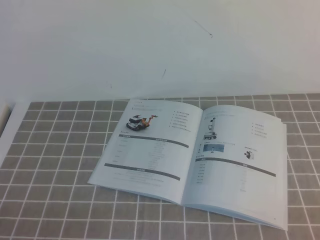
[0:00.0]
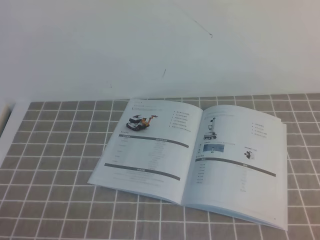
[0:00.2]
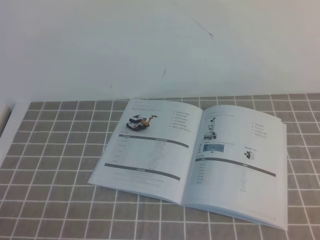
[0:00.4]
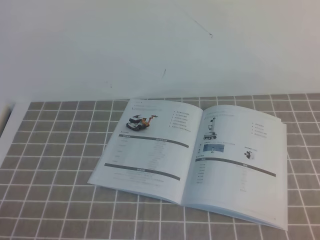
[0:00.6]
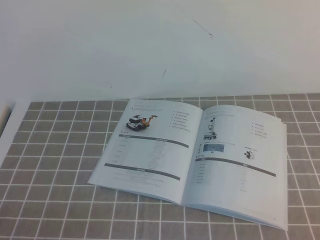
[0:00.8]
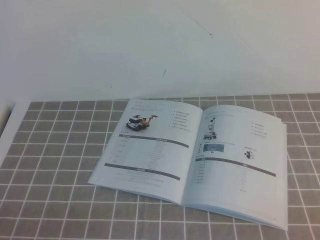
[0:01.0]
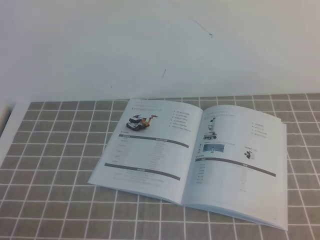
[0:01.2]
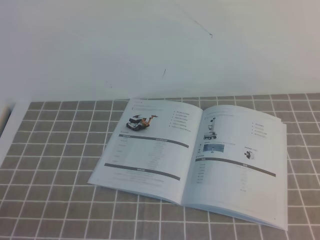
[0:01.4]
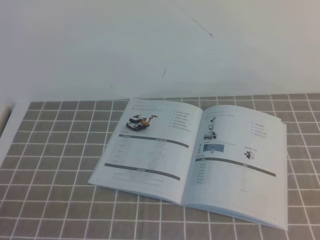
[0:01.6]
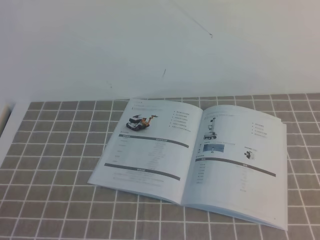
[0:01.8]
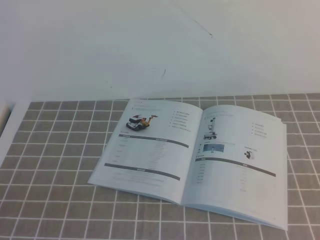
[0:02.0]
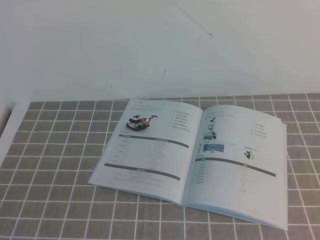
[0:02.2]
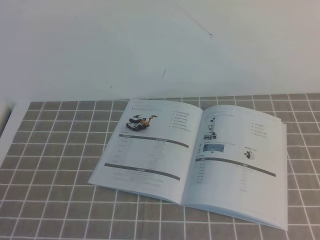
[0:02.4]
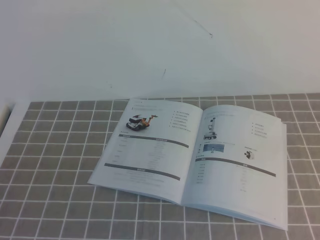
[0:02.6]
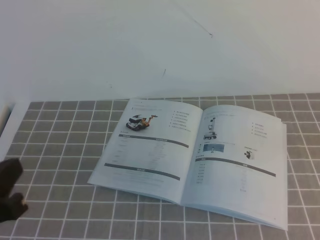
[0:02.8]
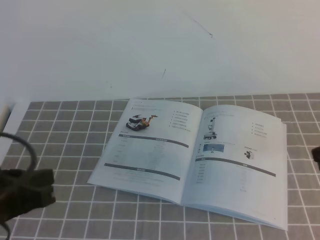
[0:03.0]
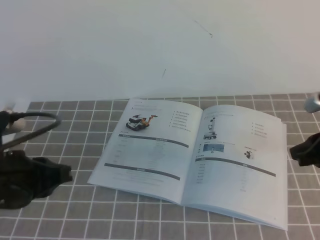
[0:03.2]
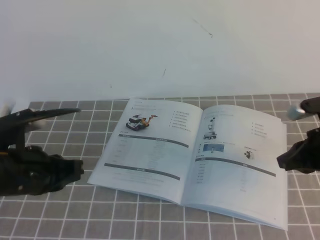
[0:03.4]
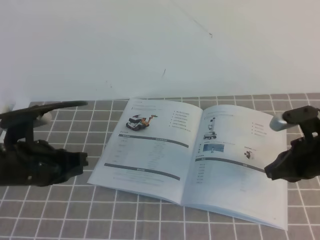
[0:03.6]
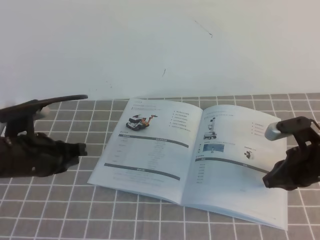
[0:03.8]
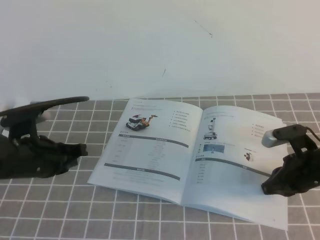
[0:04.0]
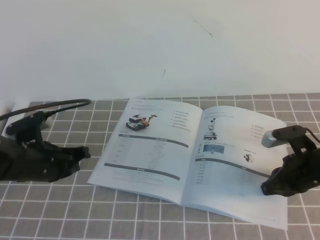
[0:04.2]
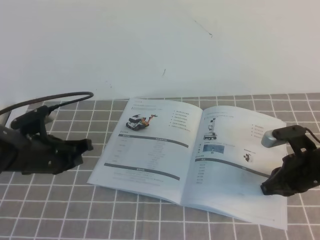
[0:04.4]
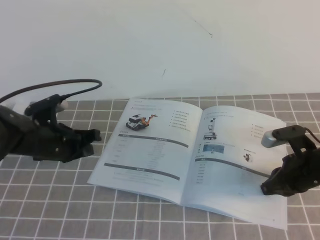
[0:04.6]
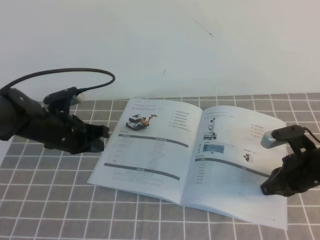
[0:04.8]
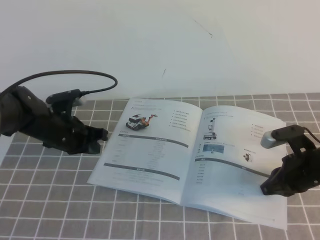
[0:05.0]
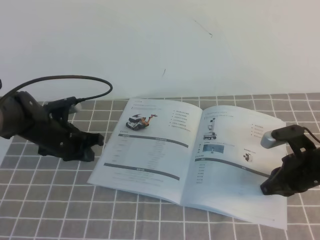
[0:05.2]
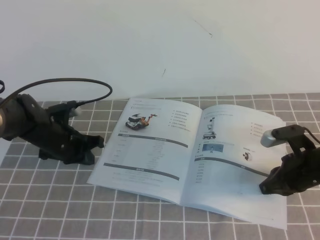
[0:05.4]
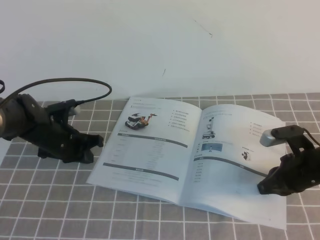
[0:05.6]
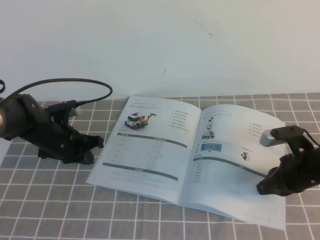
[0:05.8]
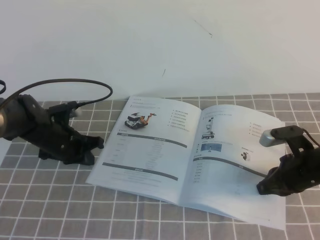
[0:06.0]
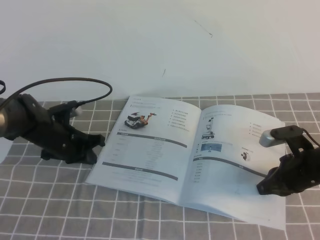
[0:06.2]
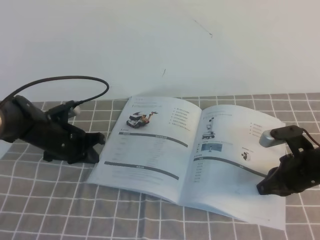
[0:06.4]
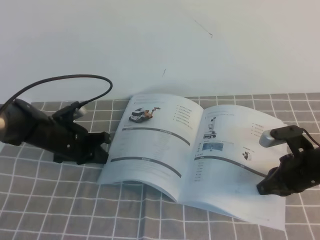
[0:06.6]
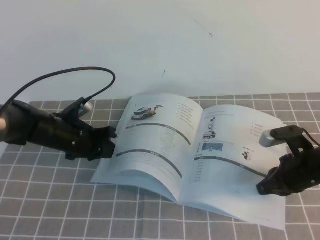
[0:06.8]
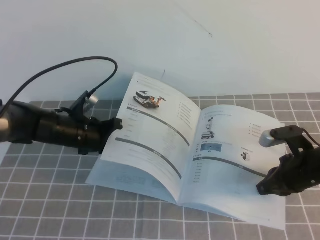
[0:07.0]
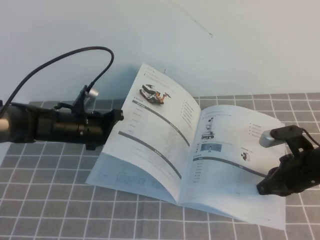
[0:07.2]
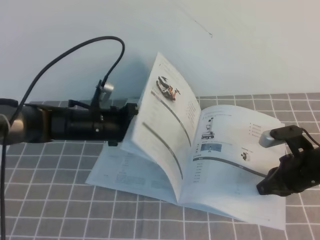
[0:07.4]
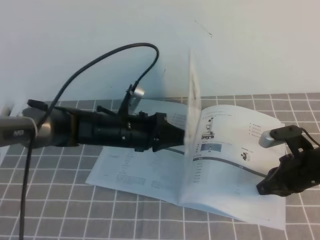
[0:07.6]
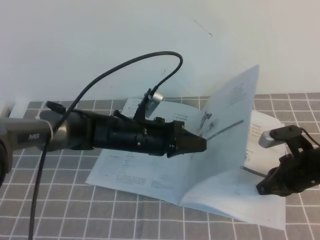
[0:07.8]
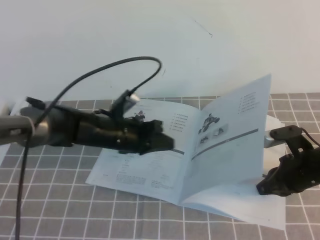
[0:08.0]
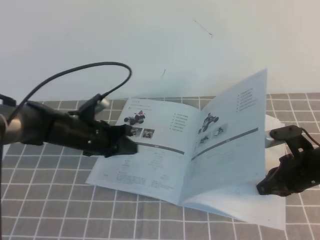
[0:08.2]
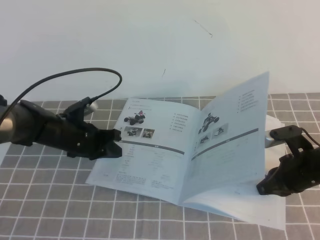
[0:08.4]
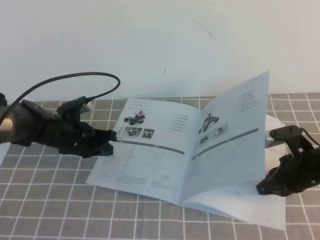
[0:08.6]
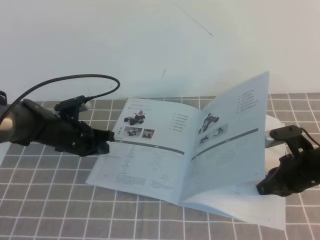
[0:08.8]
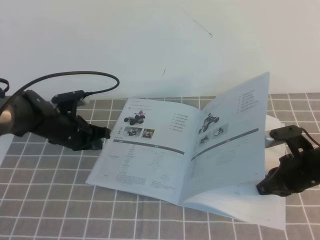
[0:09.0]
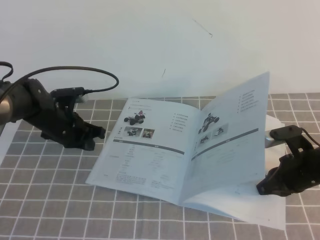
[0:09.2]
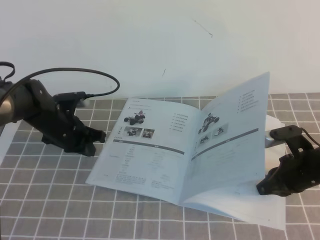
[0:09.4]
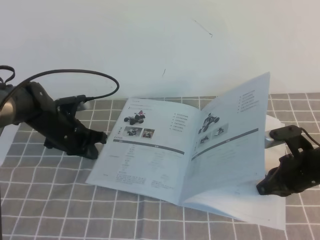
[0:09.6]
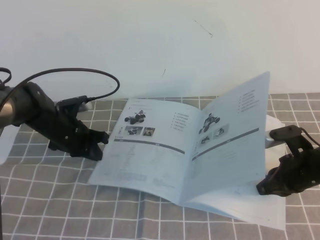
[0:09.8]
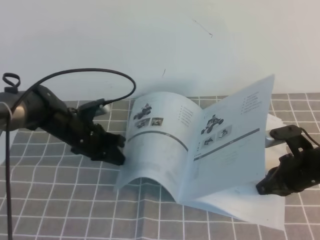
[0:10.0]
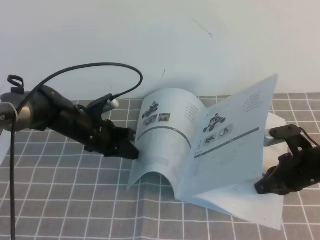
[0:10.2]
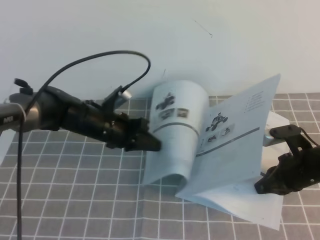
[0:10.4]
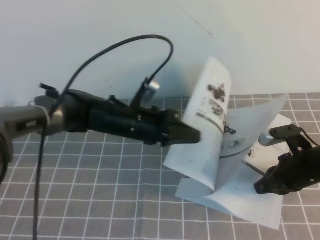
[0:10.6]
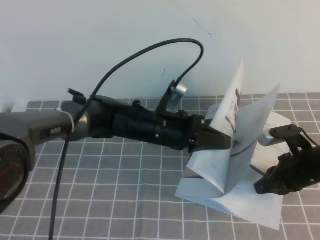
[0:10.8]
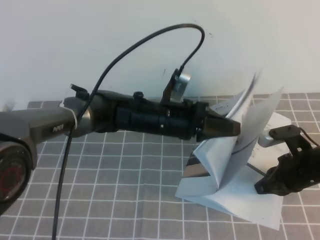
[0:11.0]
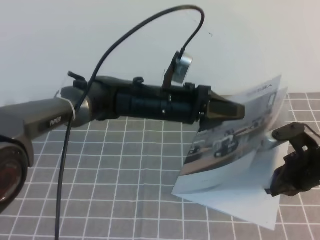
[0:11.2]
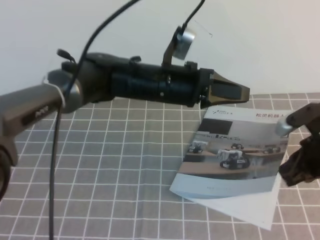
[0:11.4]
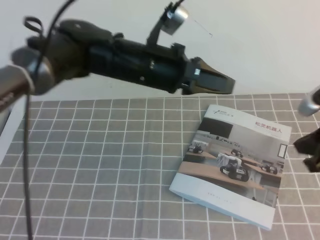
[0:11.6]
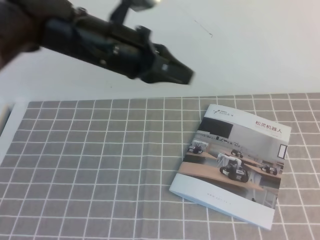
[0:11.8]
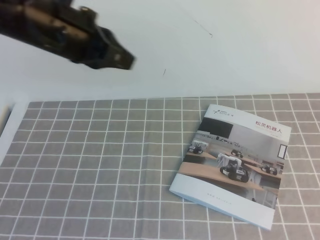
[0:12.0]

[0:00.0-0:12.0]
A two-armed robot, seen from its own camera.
Task of the whole recording: on the grey tablecloth, hold the book with one hand and close it with the other.
0:01.6 to 0:03.0: The left gripper is displaced forward and upward by roughly 10 cm; the right gripper is displaced forward by some 20 cm.
0:03.0 to 0:04.4: The left gripper shifts about 20 cm forward and downward. The right gripper is displaced downward and forward by approximately 15 cm.
0:04.4 to 0:06.0: The left gripper travels forward by some 5 cm.
0:06.0 to 0:07.6: The left gripper heads to the right, covering roughly 10 cm.
0:07.6 to 0:09.0: The left gripper goes some 10 cm to the left.
0:09.0 to 0:10.4: The left gripper travels to the right by roughly 10 cm.
0:10.4 to 0:12.0: The right gripper is displaced upward and backward by approximately 30 cm; the left gripper moves upward, roughly 25 cm.

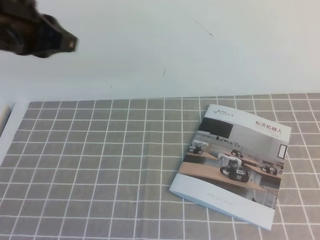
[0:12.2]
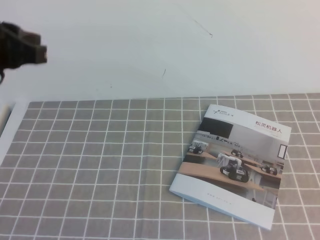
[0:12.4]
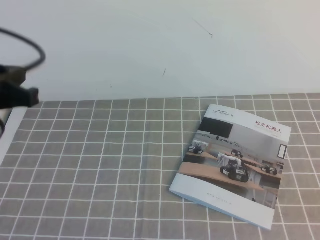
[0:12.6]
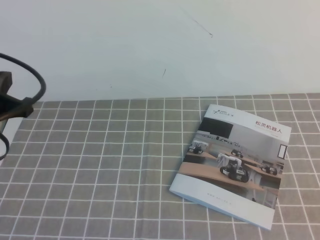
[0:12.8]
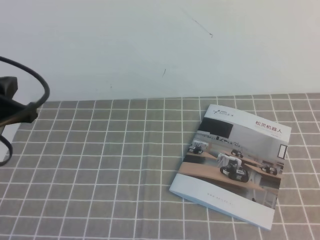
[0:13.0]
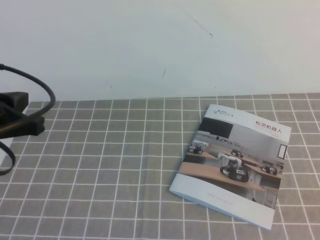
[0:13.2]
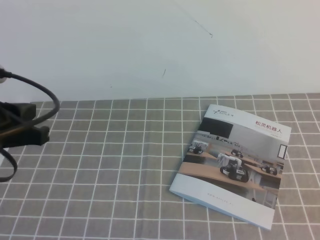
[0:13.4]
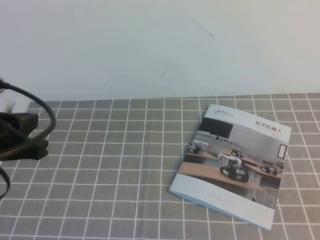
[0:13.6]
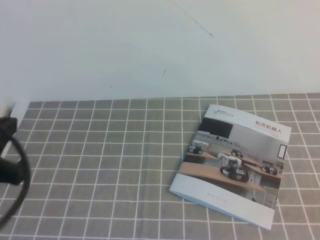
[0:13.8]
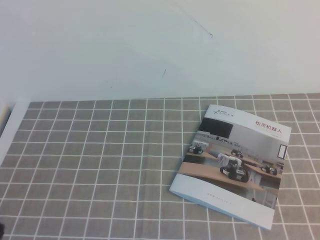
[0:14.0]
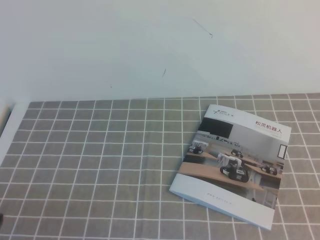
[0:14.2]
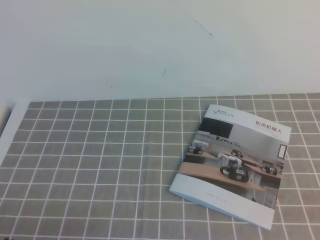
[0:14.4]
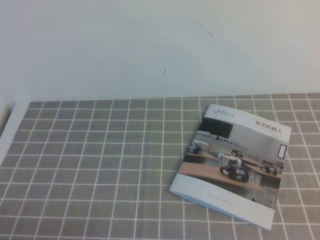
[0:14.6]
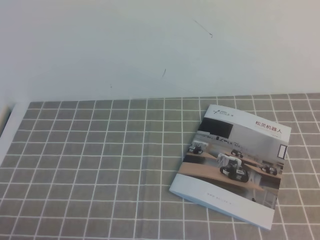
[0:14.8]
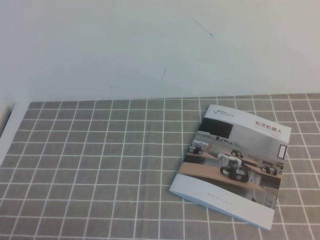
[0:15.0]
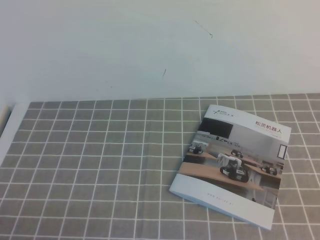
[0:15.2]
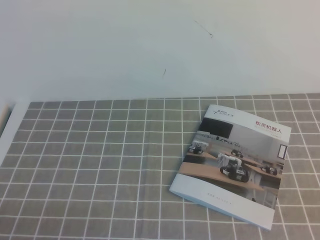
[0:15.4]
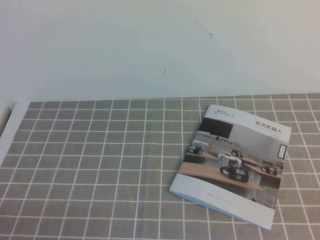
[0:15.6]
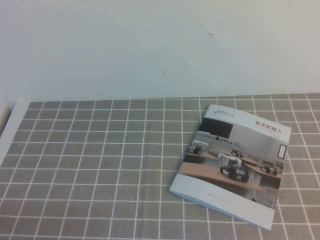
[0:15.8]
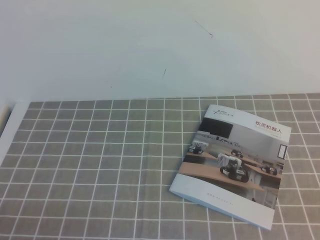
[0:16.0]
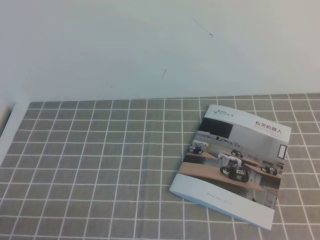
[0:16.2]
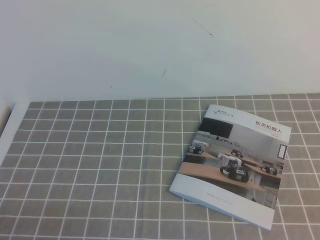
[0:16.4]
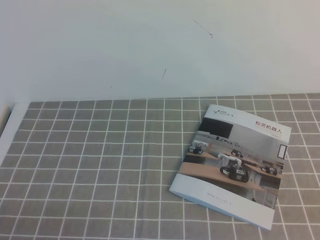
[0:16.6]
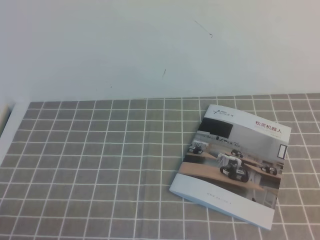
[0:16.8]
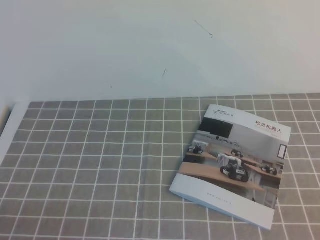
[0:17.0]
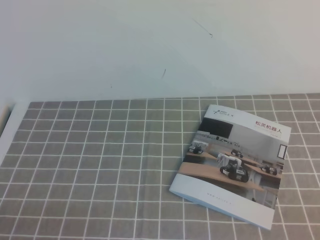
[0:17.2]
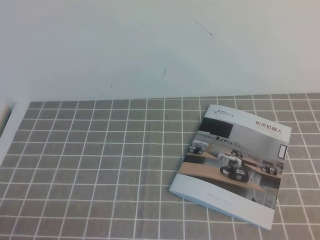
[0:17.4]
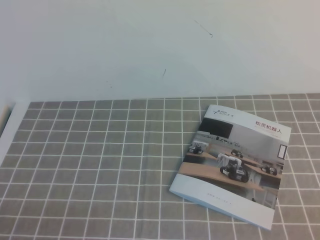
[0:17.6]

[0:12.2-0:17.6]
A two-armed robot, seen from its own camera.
Task of the whole recording: on the grey tablecloth, hold the book with one hand and close it with the other.
Step, 0:12.2 to 0:17.6: Close the open book.
0:12.2 to 0:13.6: The right gripper moves downward and backward, roughly 10 cm. Meanwhile the left gripper moves backward and downward, some 15 cm.
0:13.6 to 0:15.0: The left gripper shifts about 20 cm downward and backward.

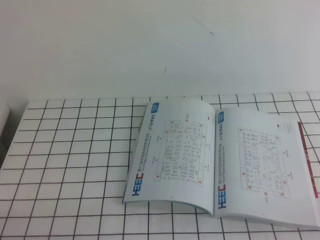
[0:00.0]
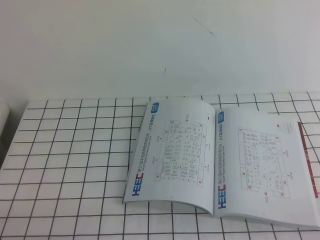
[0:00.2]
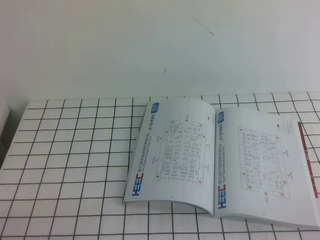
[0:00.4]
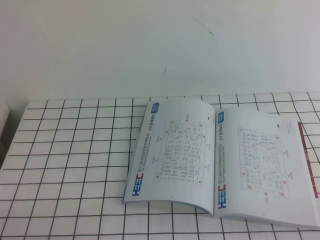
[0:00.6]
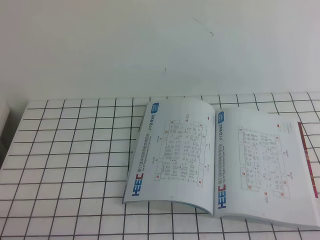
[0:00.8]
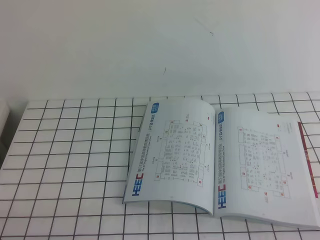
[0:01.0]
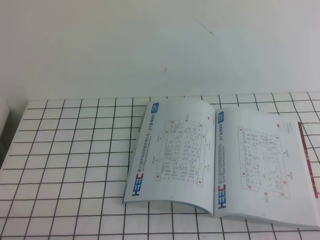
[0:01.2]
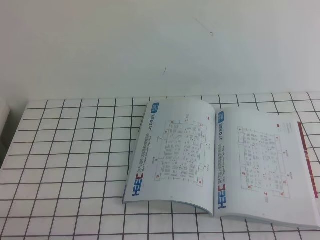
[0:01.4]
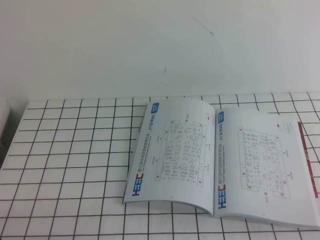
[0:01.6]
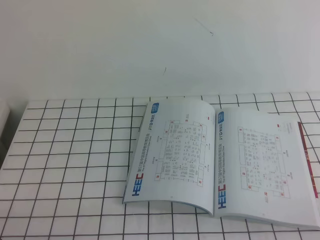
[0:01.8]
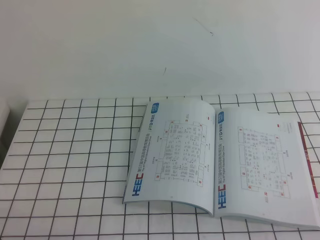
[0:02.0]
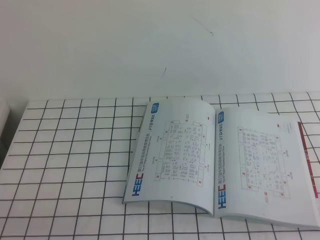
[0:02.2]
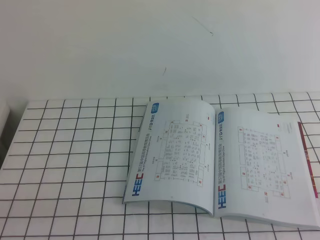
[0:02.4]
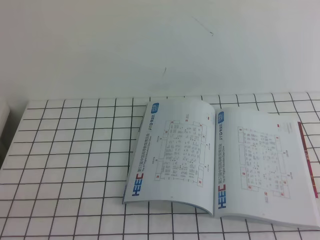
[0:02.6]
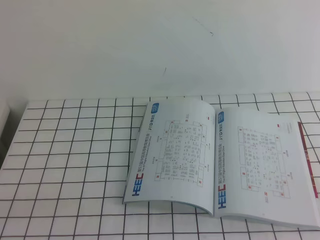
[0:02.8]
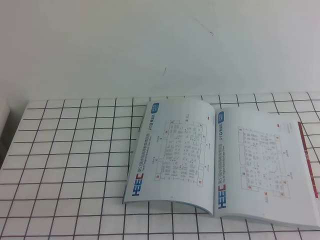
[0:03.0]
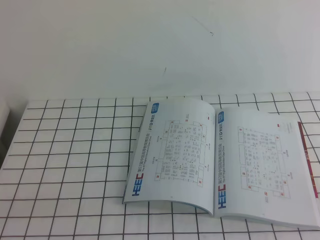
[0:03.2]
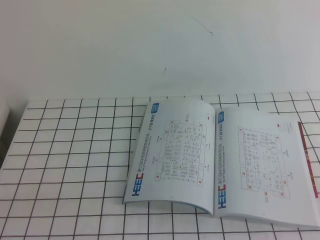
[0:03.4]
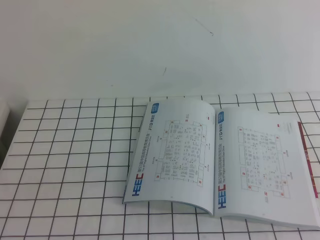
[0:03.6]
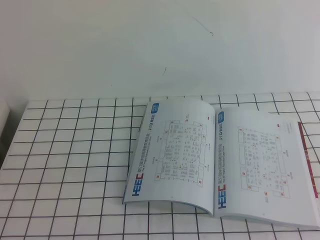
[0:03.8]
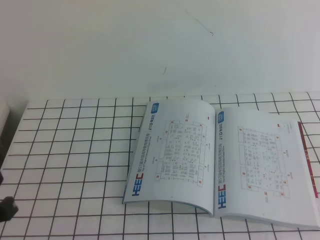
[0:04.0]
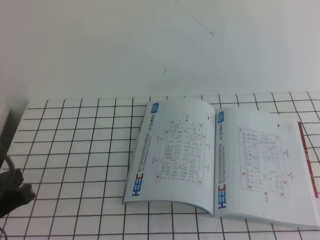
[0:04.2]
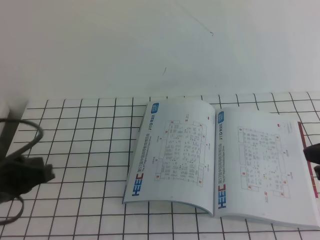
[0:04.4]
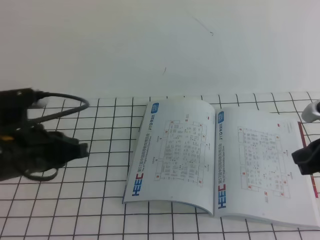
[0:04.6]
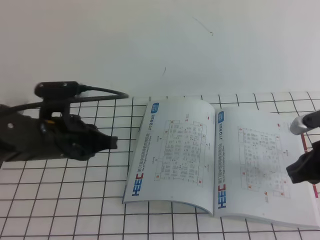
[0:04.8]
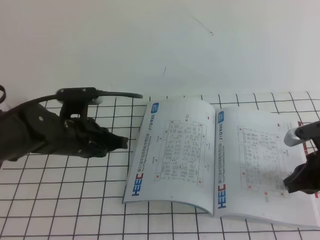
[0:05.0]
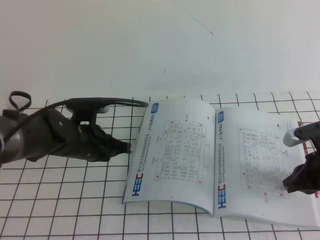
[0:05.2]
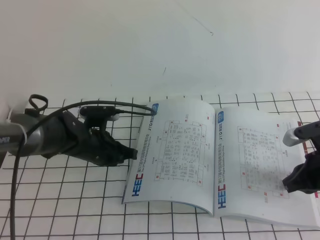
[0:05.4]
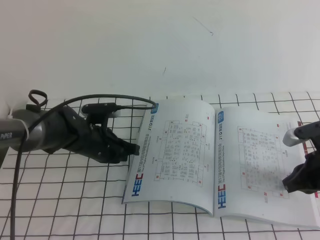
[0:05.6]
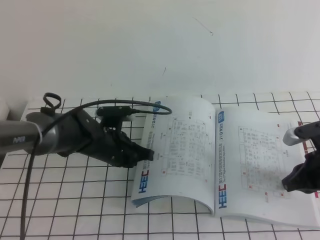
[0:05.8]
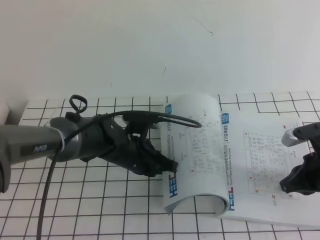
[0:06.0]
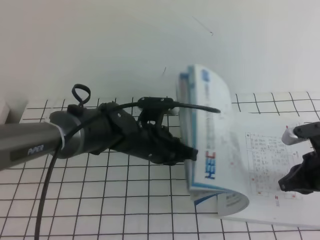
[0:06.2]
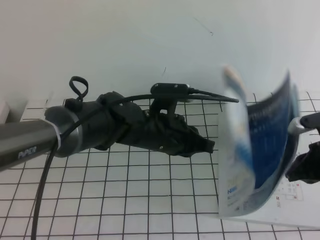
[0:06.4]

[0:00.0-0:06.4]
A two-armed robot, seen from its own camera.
Task of the whole recording: on the white tablecloth, hold the book with one hand and close it with the other.
0:00.0 to 0:01.6: Both grippers stay put.
0:03.2 to 0:04.8: The grippers both shift forward by approximately 25 cm.
0:04.8 to 0:06.4: The left gripper is displaced to the right by roughly 15 cm.
